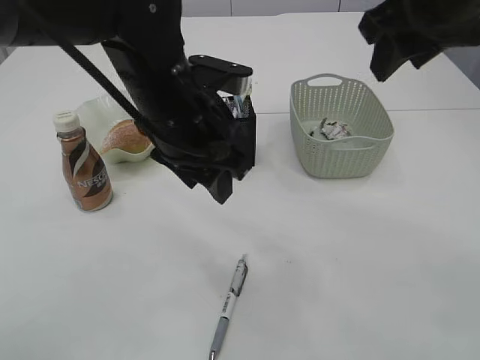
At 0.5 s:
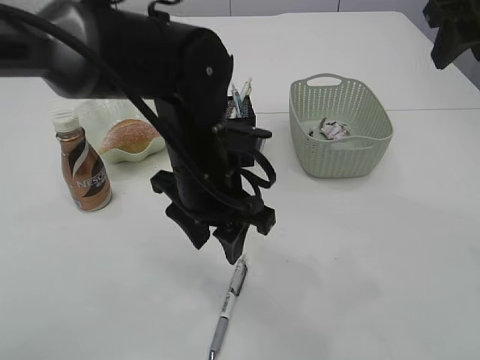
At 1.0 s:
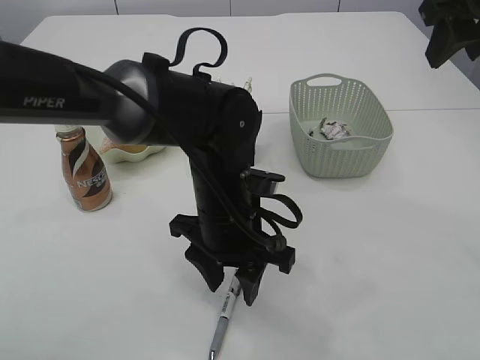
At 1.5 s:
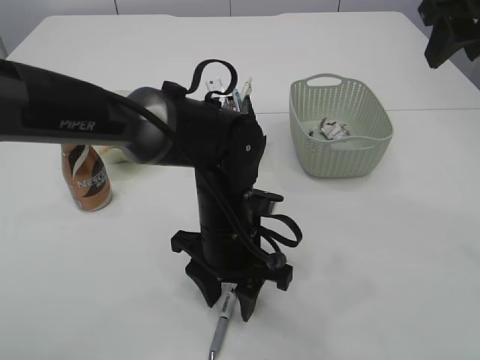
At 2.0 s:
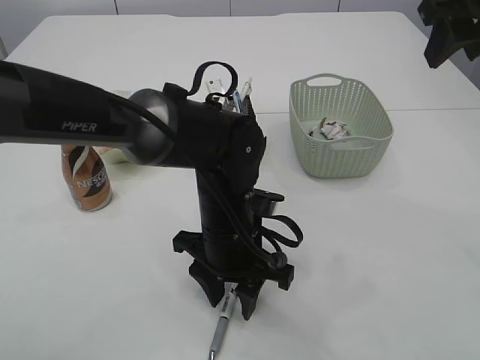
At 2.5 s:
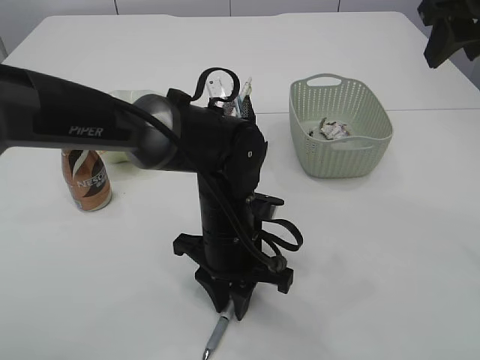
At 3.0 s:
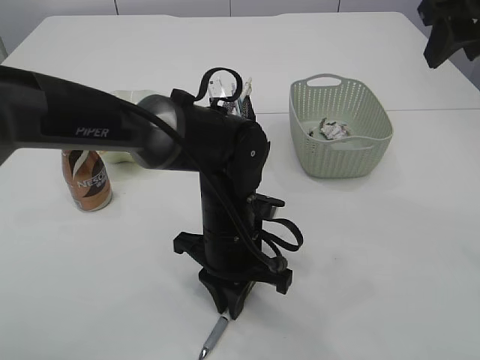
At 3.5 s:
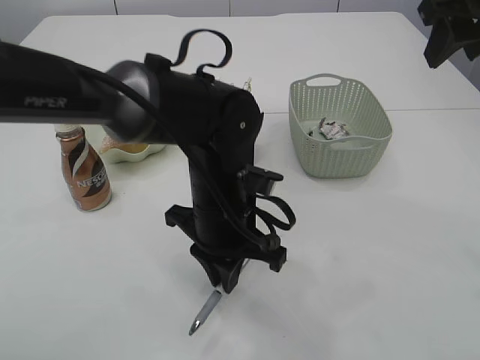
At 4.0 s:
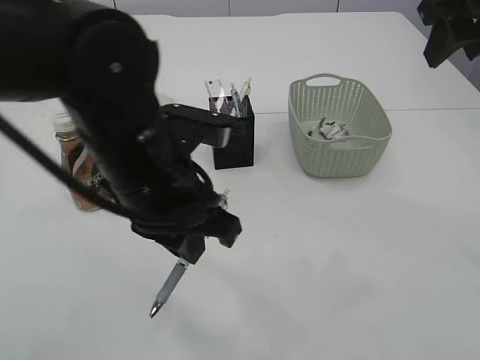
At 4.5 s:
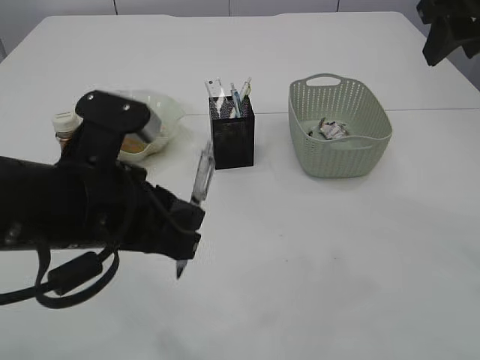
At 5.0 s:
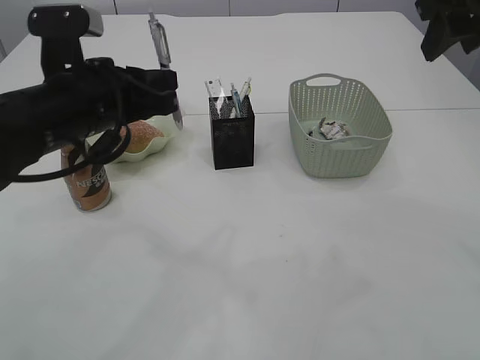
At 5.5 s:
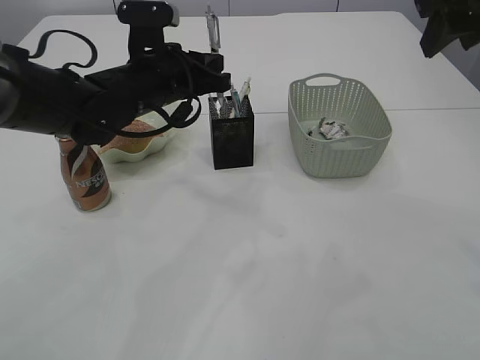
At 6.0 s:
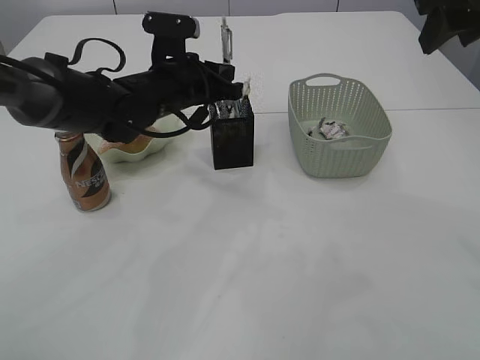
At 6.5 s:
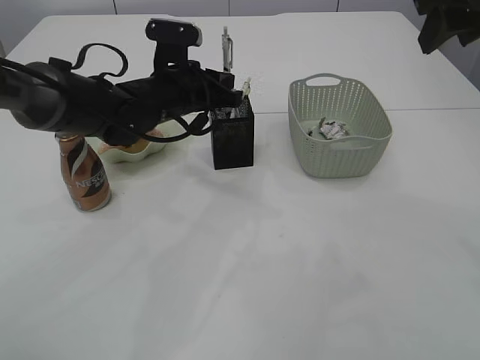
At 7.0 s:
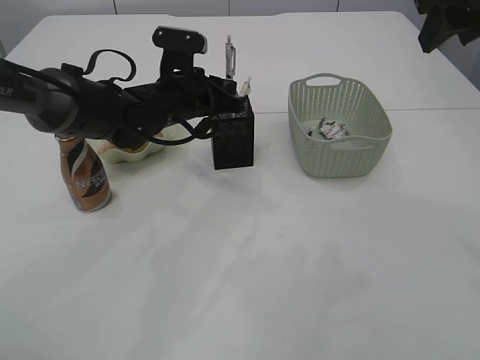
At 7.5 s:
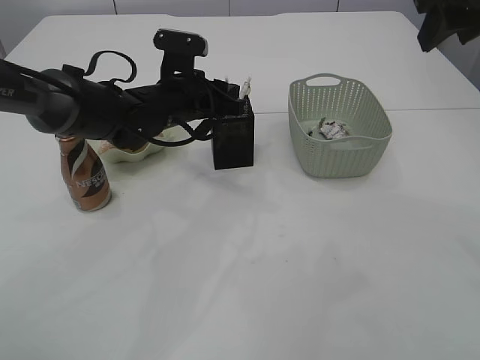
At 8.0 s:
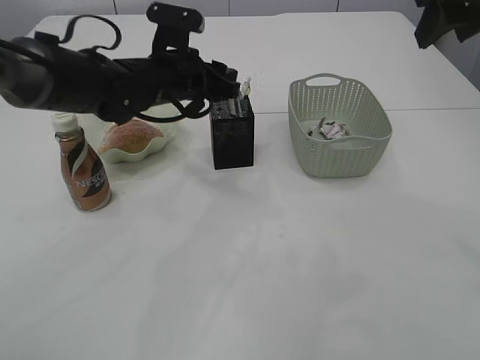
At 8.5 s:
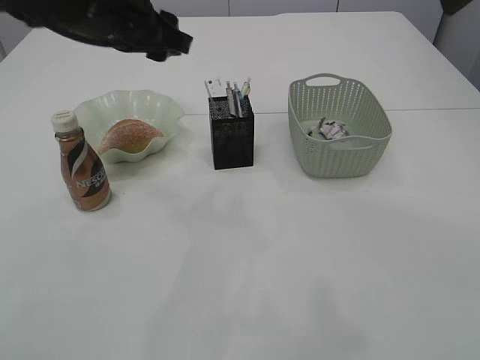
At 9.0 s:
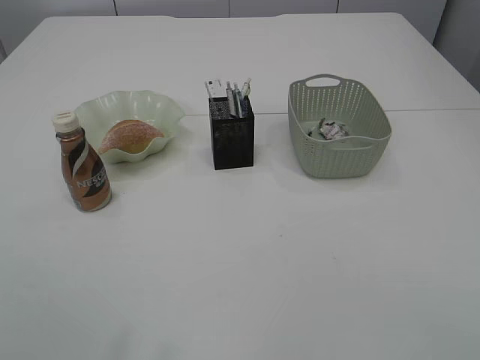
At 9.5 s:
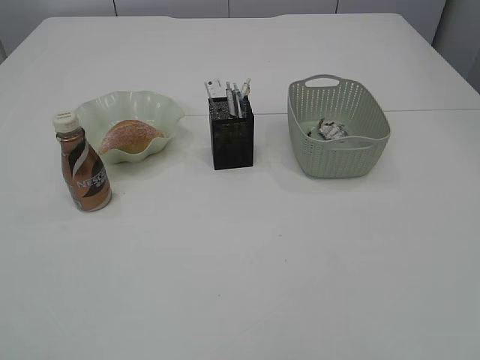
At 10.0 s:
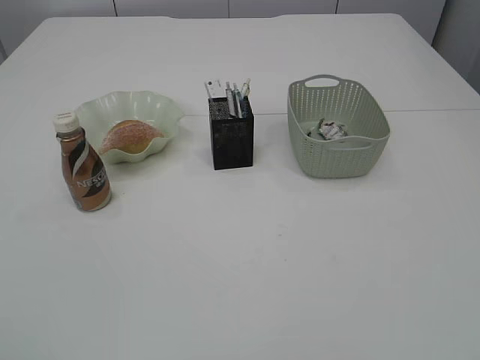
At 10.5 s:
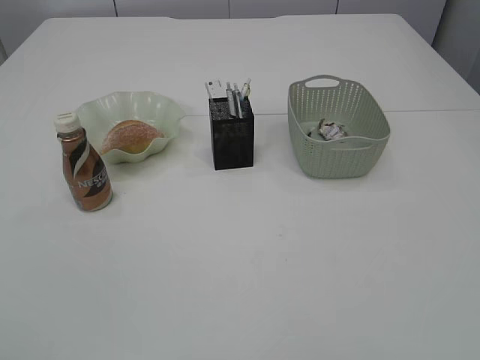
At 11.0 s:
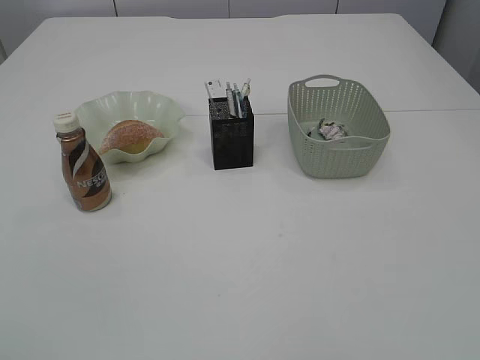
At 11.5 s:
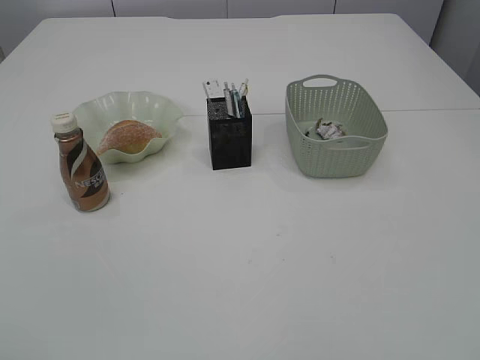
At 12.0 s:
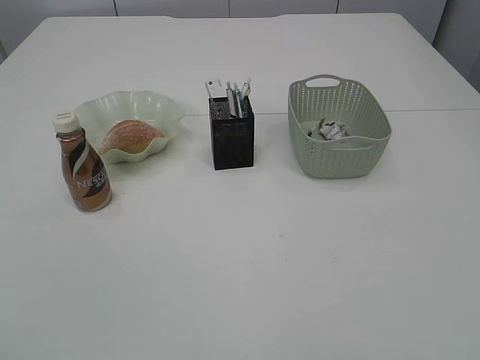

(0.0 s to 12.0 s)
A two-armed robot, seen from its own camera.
Step, 0.0 s - 3.5 s: Pick up the pen with left arm.
Step, 4.0 s - 8.5 s: Place the pen into the pen holder.
0.0 s - 2.0 s: The right gripper is displaced to the right by roughly 5 cm; the left gripper travels downward by about 15 cm.
2.0 s - 4.0 s: The left gripper goes about 15 cm upward and to the left, and closes.
4.0 s - 6.0 s: The left gripper is displaced forward by about 20 cm.
6.0 s - 8.0 s: The left gripper opens its fingers.
8.0 s - 10.0 s: The left gripper travels backward and to the left by some 50 cm. The right gripper shifts roughly 40 cm backward.

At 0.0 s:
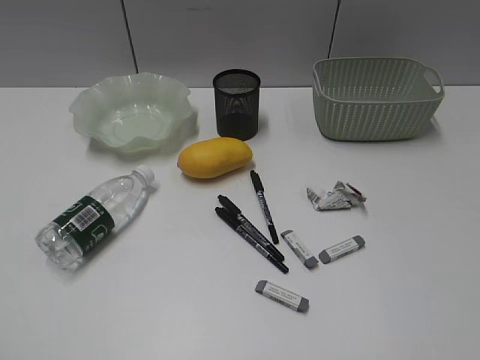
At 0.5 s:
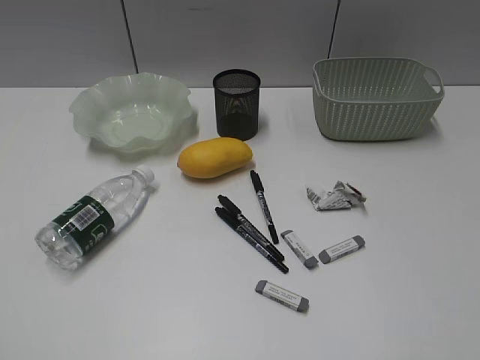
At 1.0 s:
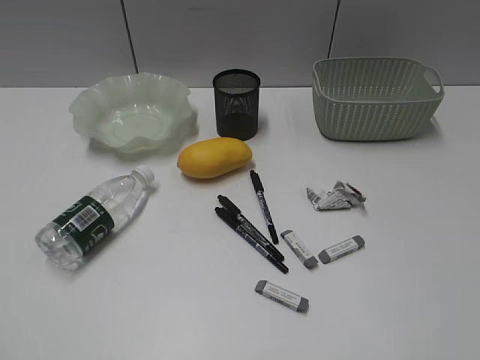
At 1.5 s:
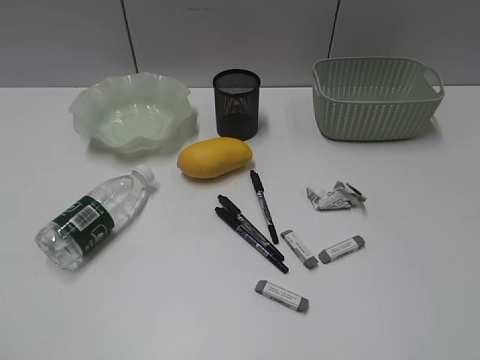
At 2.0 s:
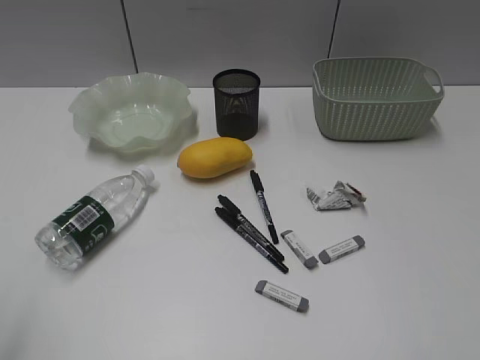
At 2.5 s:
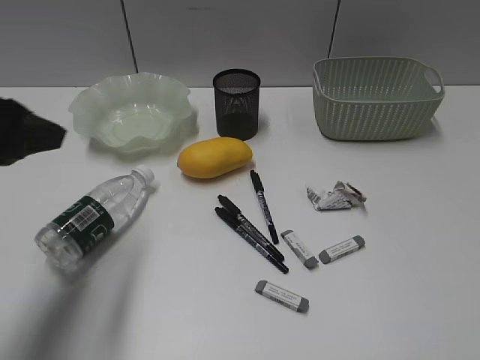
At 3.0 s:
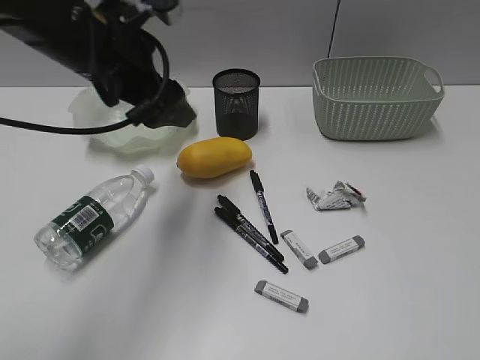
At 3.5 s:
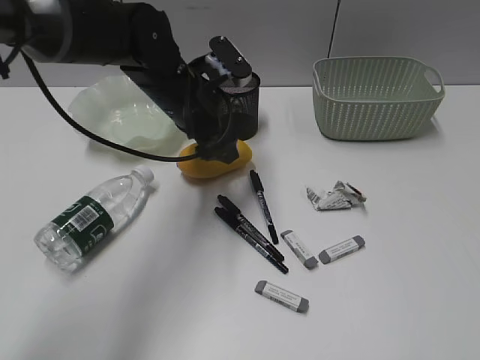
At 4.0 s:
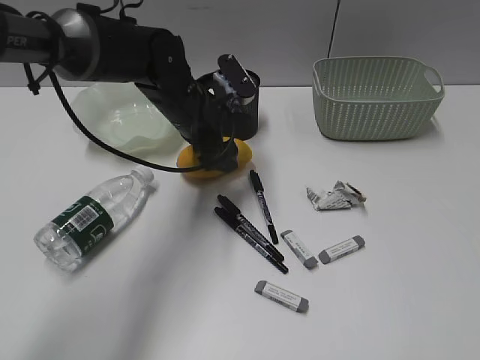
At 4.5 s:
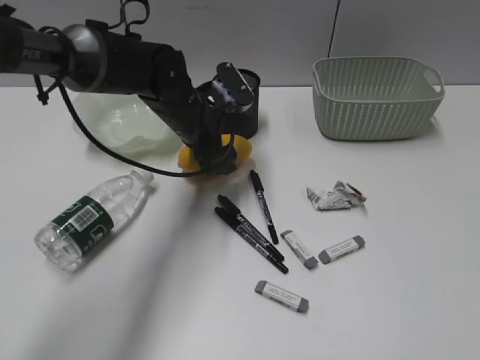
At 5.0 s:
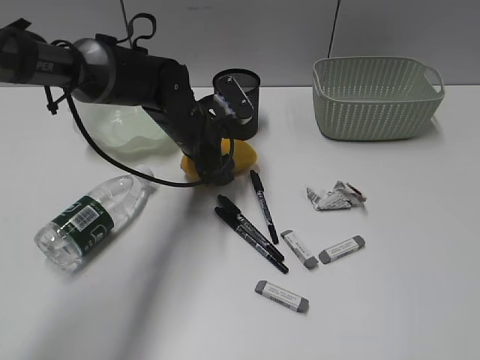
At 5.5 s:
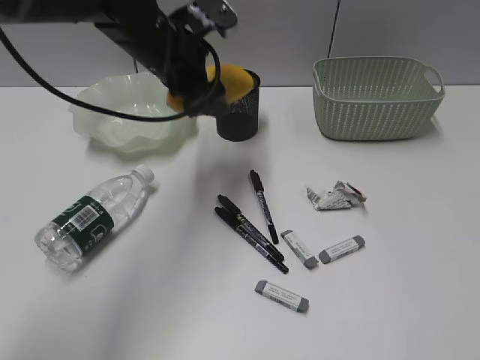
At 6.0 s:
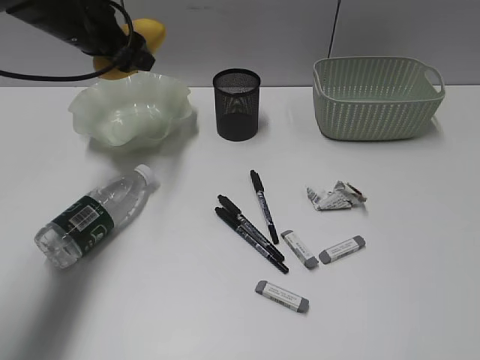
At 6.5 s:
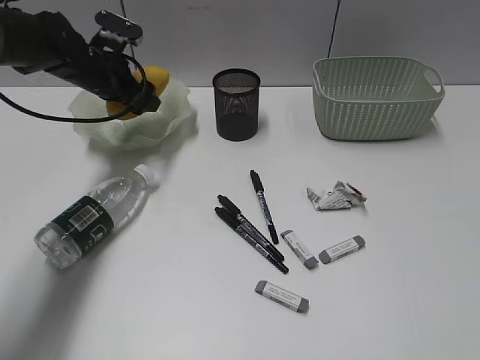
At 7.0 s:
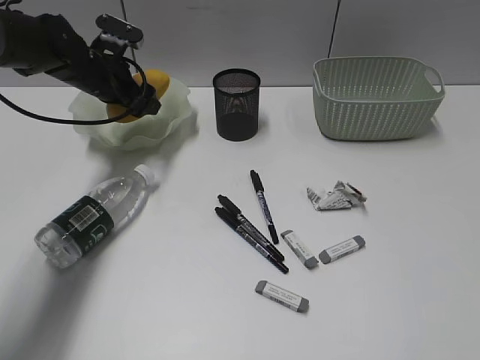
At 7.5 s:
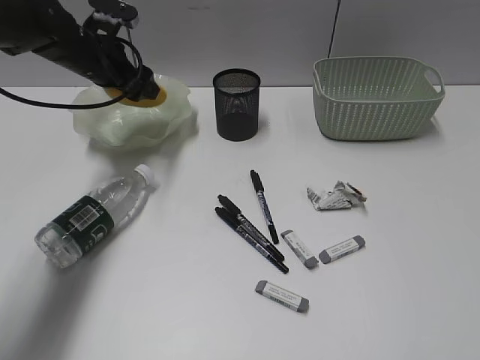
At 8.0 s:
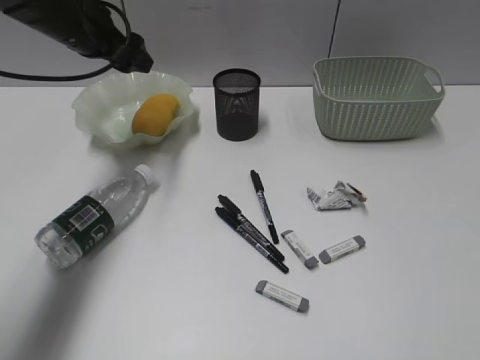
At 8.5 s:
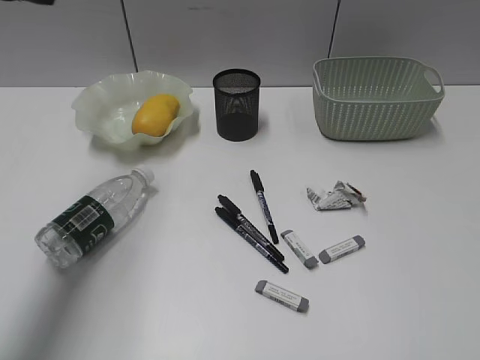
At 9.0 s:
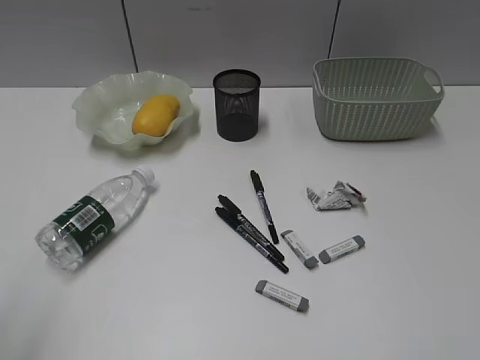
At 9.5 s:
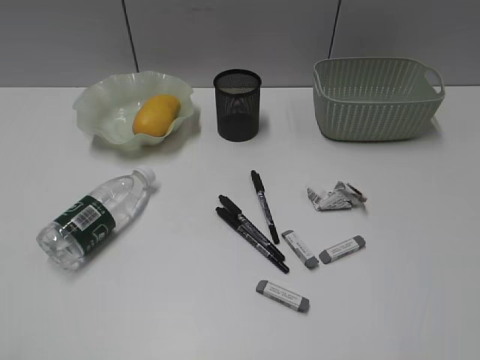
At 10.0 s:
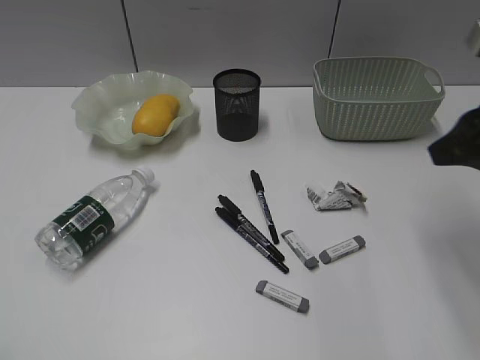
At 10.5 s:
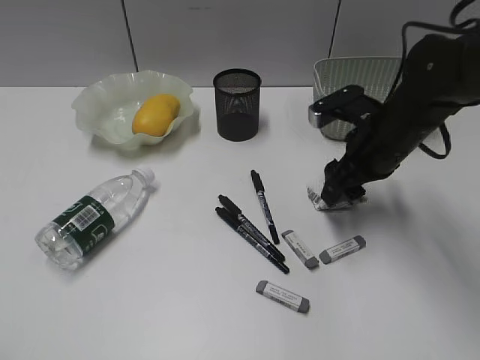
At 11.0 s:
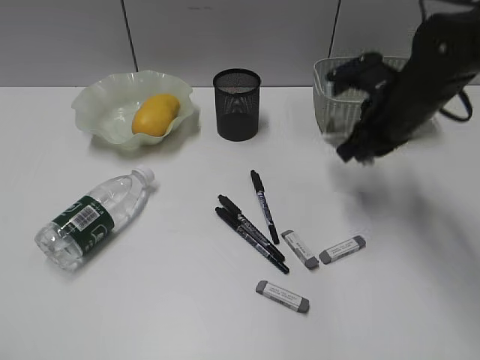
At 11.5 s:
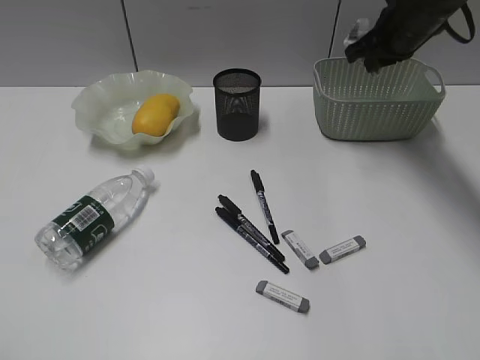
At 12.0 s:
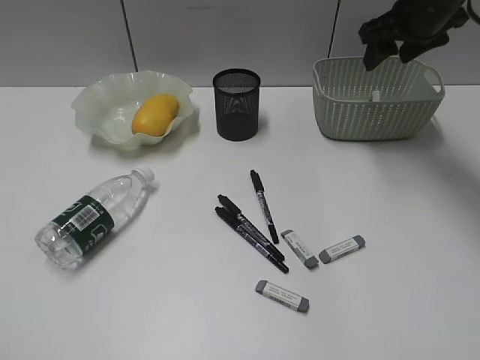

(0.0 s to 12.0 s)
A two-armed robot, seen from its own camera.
Step, 1.5 s - 4.5 s: Grasp the mango with left gripper.
Step, 5.0 s - 7.5 s: Place the mango in the plate with left gripper.
Step, 8.0 s - 10.5 s: Grasp the waste paper with right gripper.
Step, 11.0 s - 11.5 s: Place the waste paper in the basket with right gripper.
2.0 s - 4.0 s: The left gripper heads forward, to the right and downward, covering approximately 40 cm, and opens its fingers.
4.0 s - 6.0 s: The left gripper travels to the left, upward and forward by roughly 15 cm.
6.0 s - 8.0 s: The left gripper travels downward and back again, some 10 cm each way.
8.0 s - 10.0 s: The left gripper moves backward, some 50 cm, and closes its fingers. Meanwhile the right gripper moves forward, about 25 cm.
10.0 s - 12.0 s: The right gripper shifts roughly 20 cm forward, and closes, then opens again.

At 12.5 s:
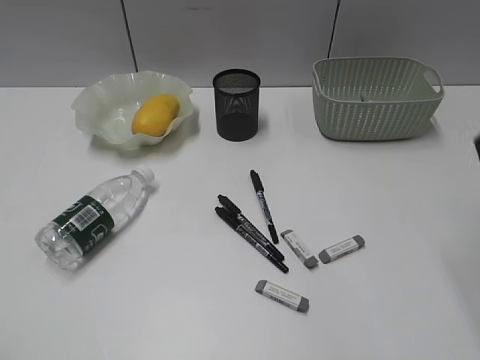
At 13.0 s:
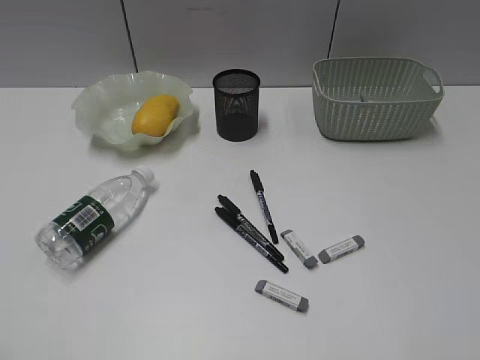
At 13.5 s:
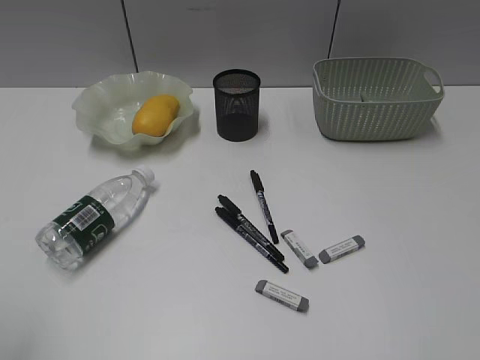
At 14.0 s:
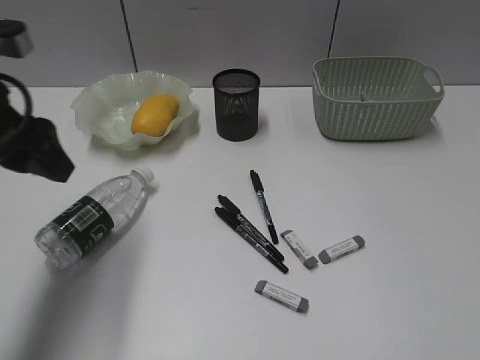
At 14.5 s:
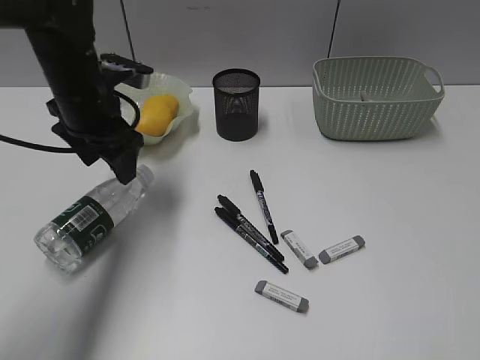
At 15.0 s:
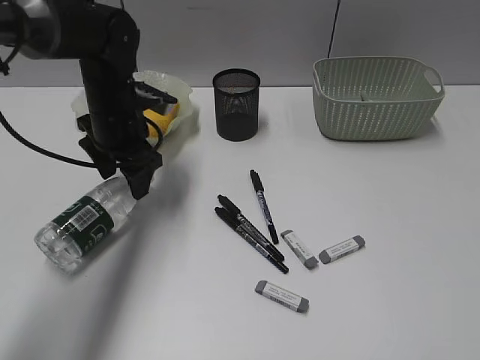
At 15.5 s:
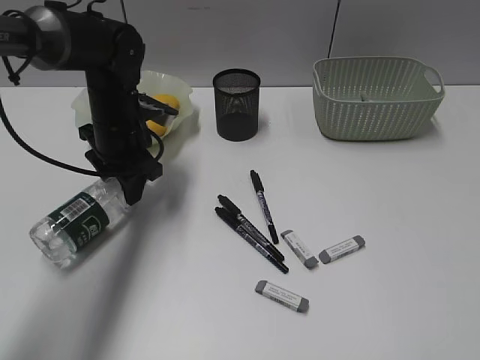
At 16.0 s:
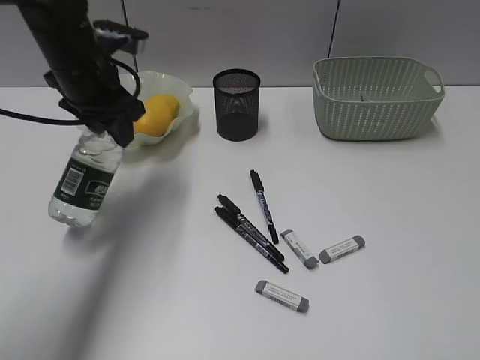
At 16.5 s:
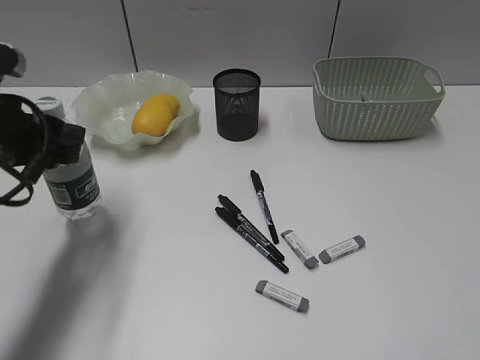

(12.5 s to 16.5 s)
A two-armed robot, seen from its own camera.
Step, 12.5 s - 15.5 s: Grasp the bottle with left gripper.
12.5 s - 14.5 s: The right gripper travels backward by approximately 20 cm; the left gripper goes roughly 40 cm forward, and opens.
14.5 s - 16.5 s: The left gripper heads backward and to the left, covering some 15 cm, and closes its fingers.